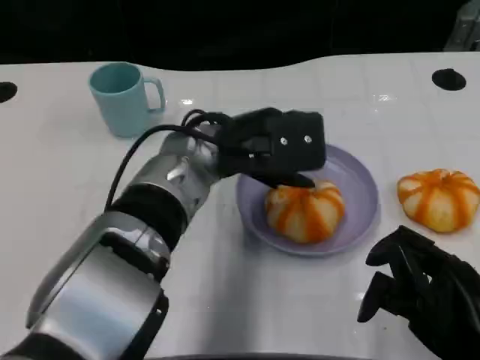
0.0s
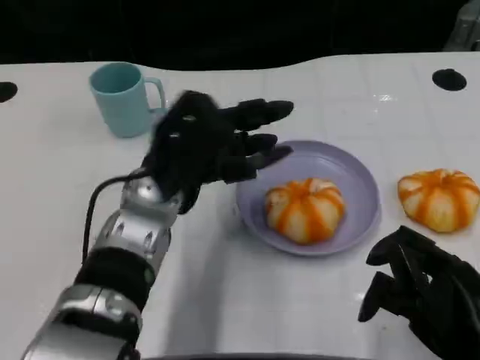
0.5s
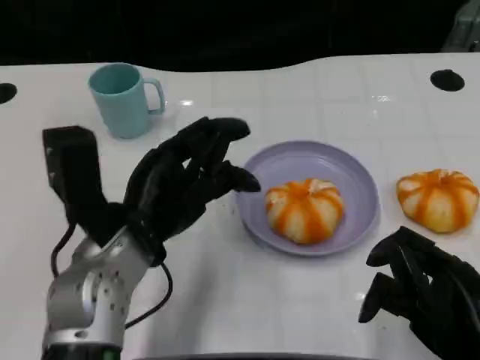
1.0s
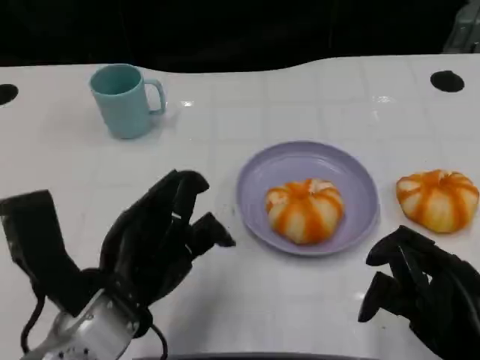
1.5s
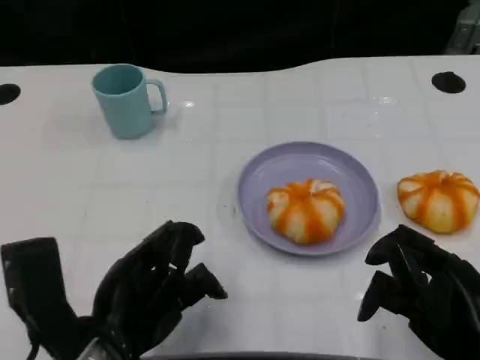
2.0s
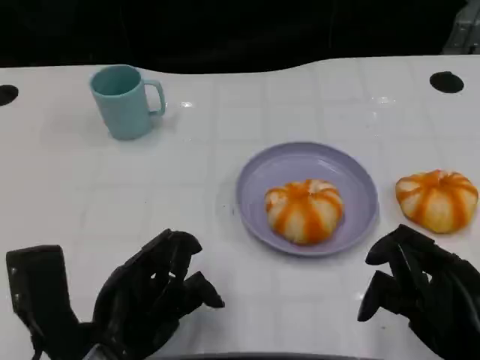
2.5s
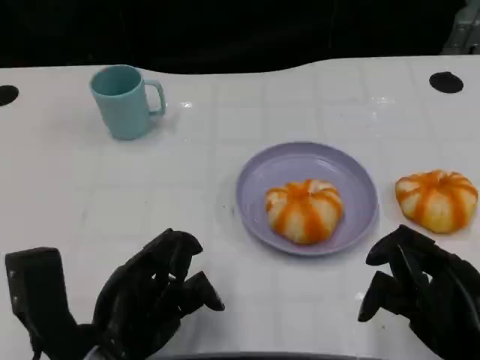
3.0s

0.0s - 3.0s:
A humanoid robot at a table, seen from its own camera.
Task of the whole recording: Grasp the bread from the table and place it into the plate.
0.0s - 1.5s: The left hand heads backward and to the left, covering roughly 15 cm.
1.5s - 3.0s: The hands make only small movements.

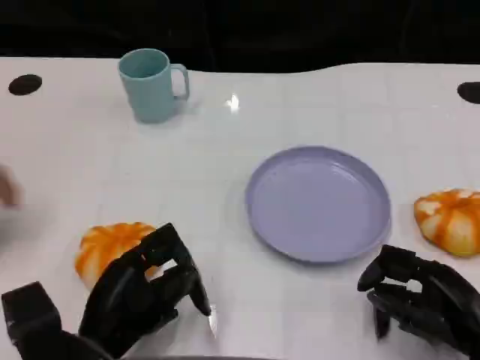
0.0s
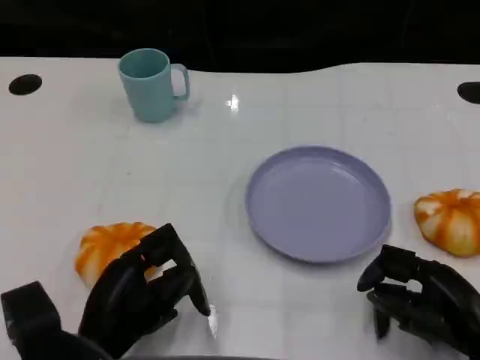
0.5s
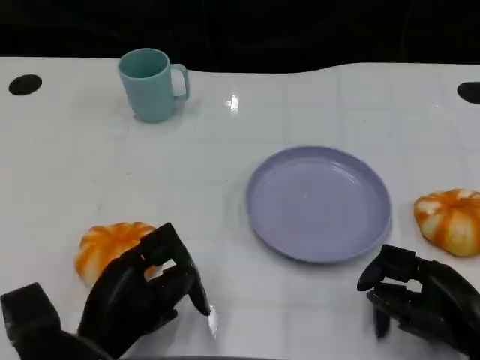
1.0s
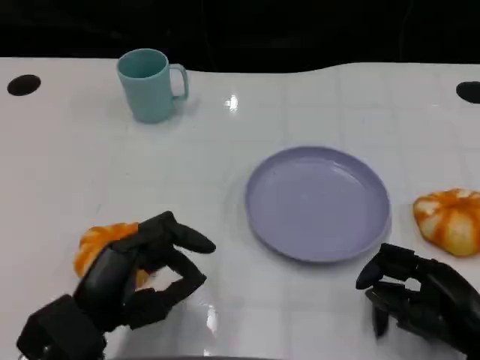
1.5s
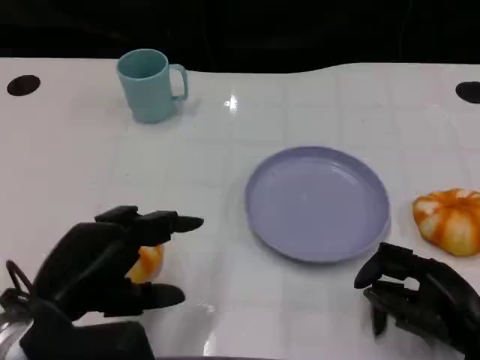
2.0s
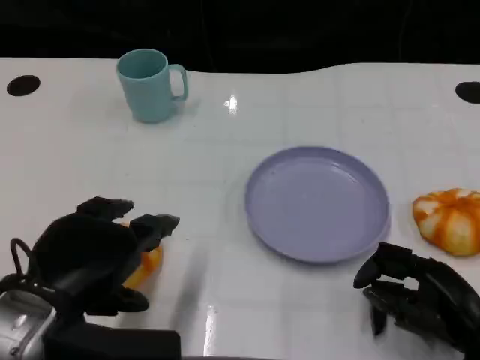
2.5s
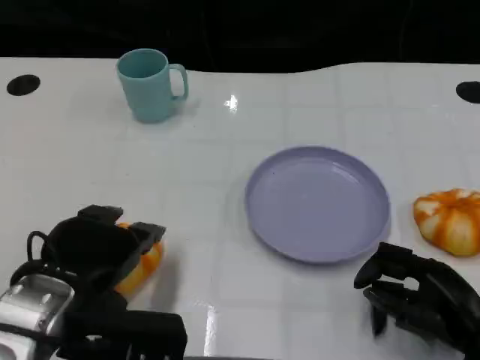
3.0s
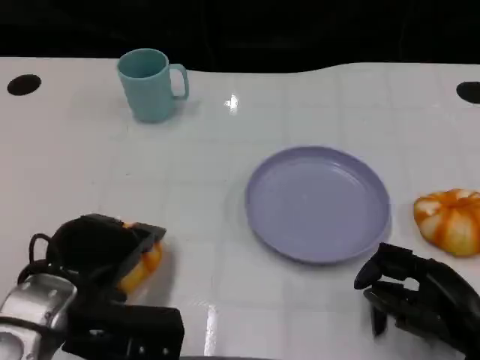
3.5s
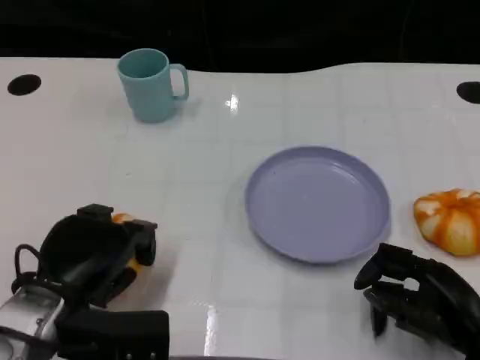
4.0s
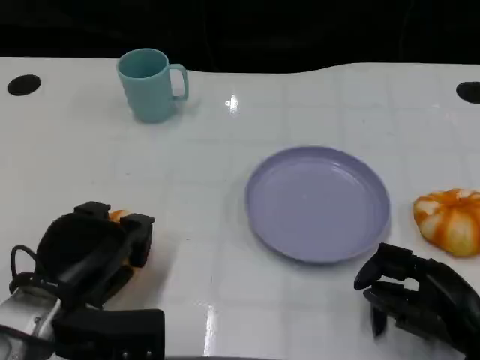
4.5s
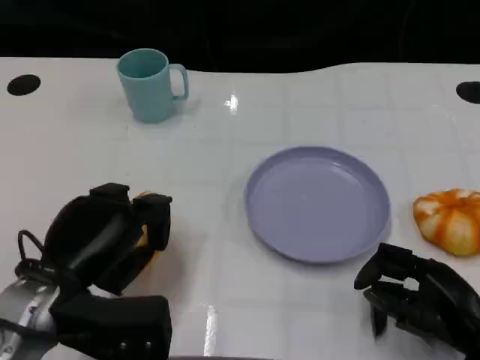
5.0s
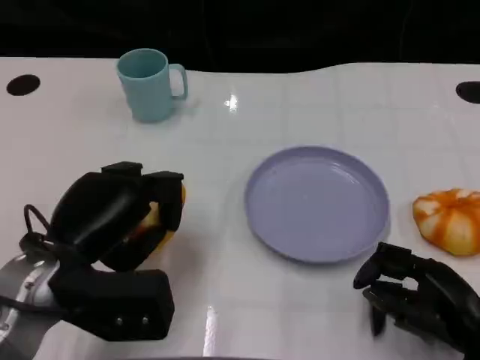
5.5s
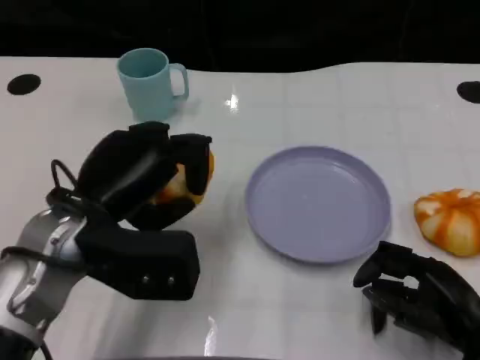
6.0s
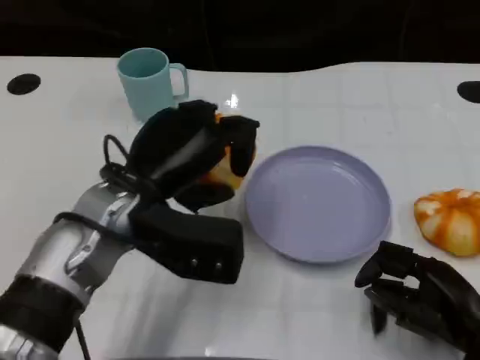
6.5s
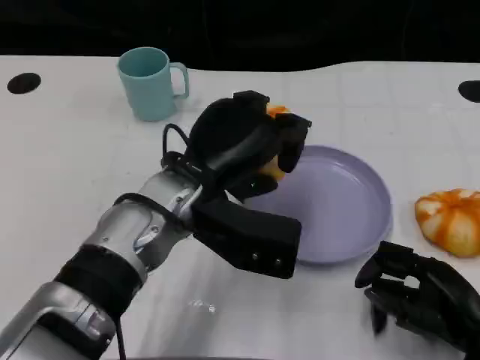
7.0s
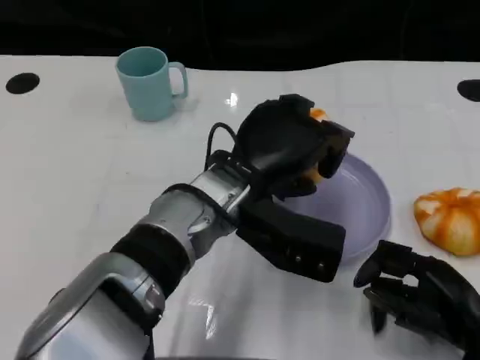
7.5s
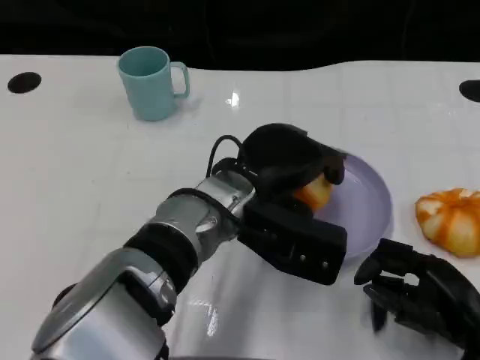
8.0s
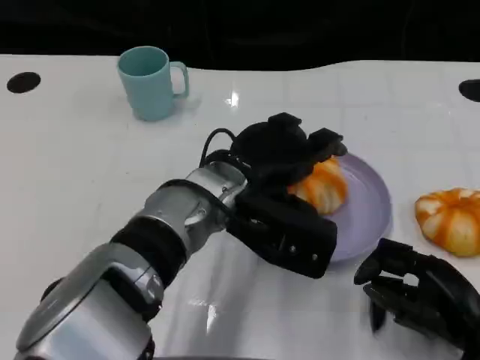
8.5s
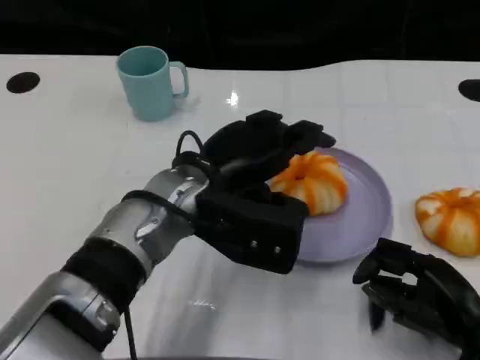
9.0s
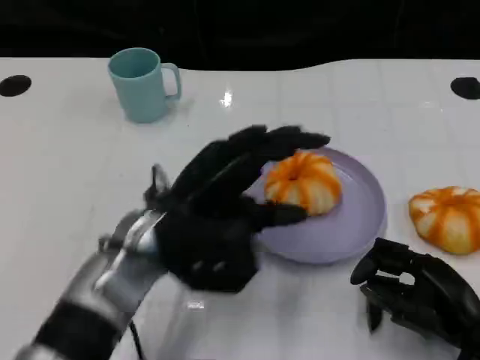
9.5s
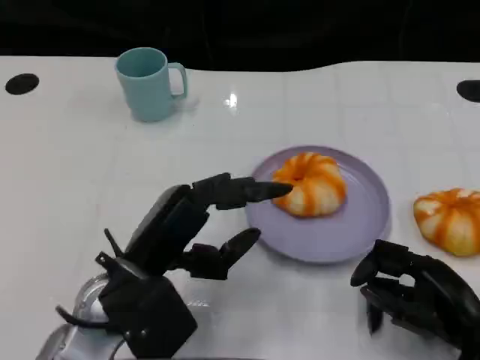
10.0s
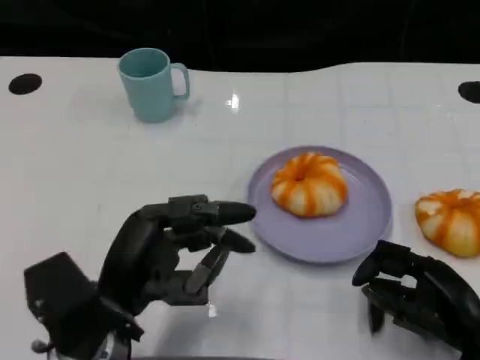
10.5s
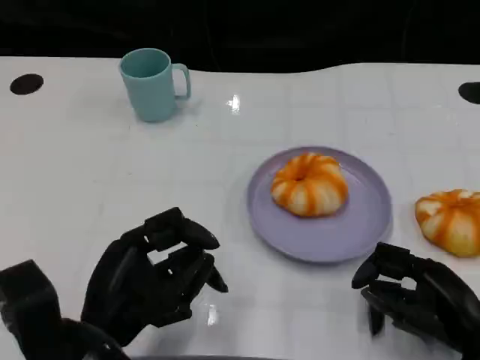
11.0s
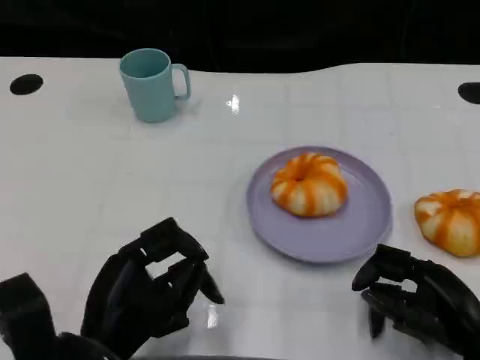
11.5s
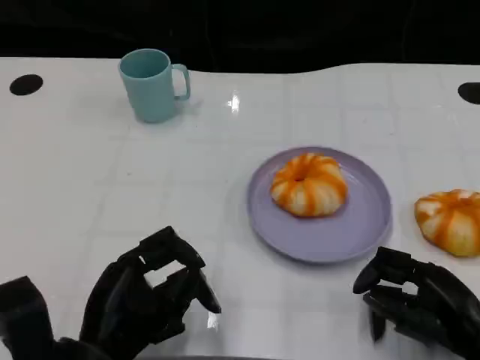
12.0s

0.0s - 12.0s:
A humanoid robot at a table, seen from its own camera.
Task of the whole recording: Grasp the bread from the table and place it into the plate.
0.0s - 2.0s: The left hand shifts approximately 10 cm upward.
2.0s - 4.0s: The left hand shifts by roughly 5 cm.
4.0s - 6.0s: The left hand moves upward, about 5 cm.
6.0s - 8.0s: The left hand shifts roughly 15 cm to the right.
8.0s - 10.0s: The left hand travels to the left and backward by some 15 cm.
10.0s - 12.0s: The left hand goes about 5 cm backward.

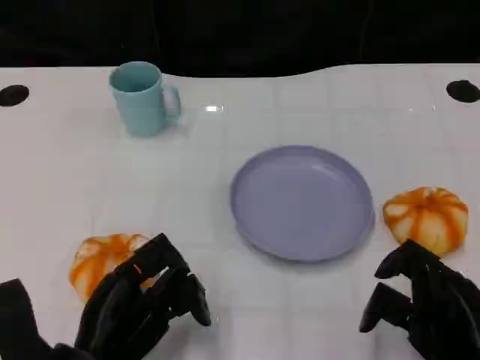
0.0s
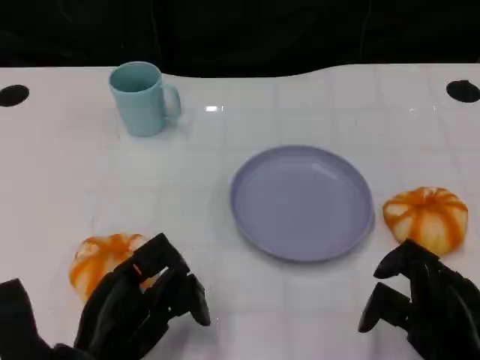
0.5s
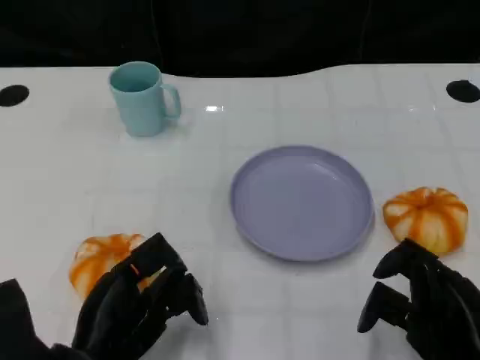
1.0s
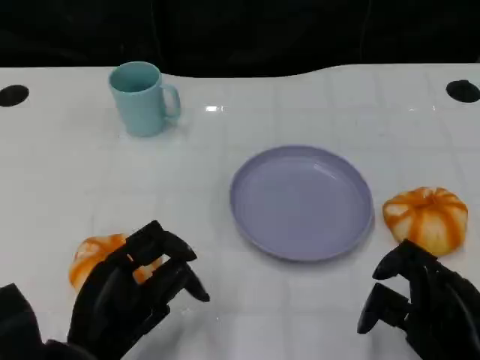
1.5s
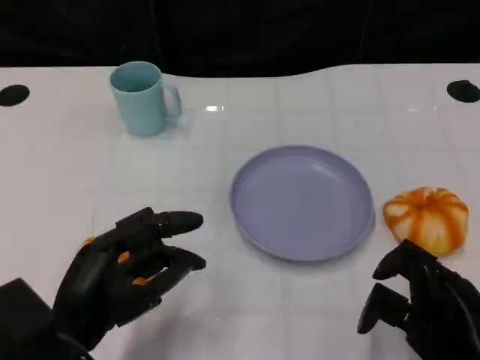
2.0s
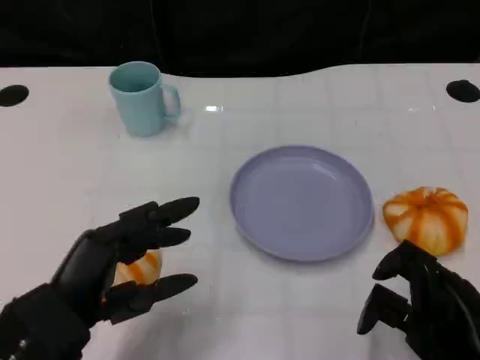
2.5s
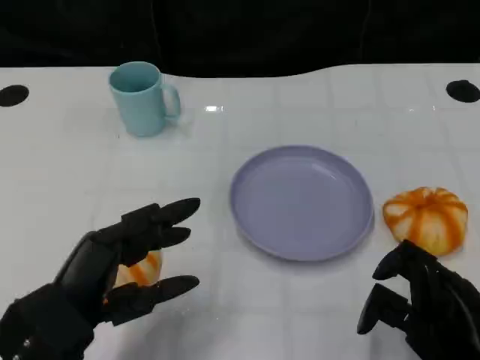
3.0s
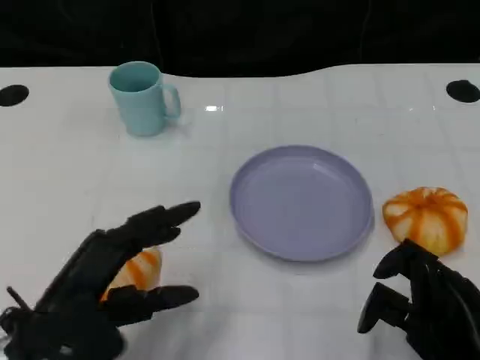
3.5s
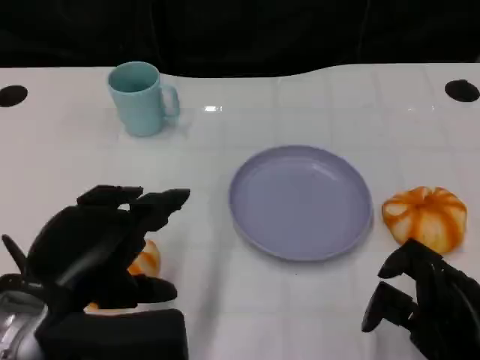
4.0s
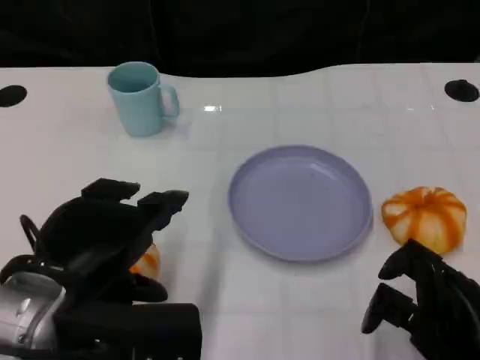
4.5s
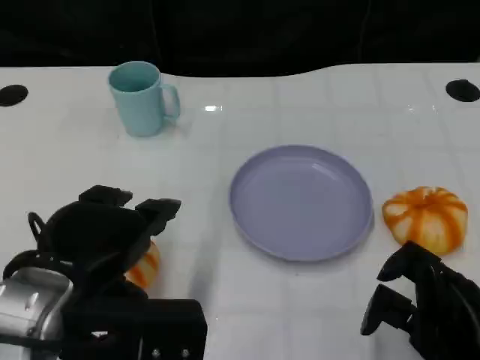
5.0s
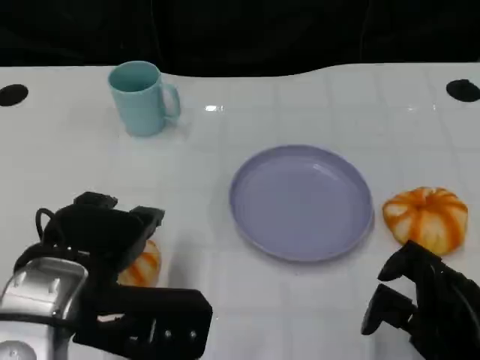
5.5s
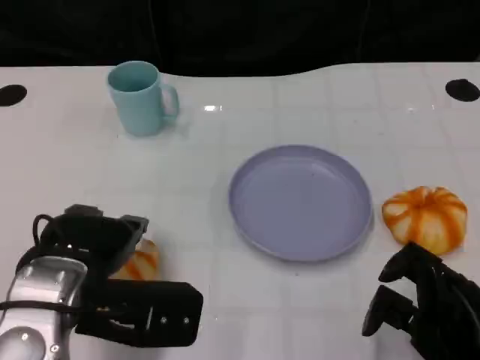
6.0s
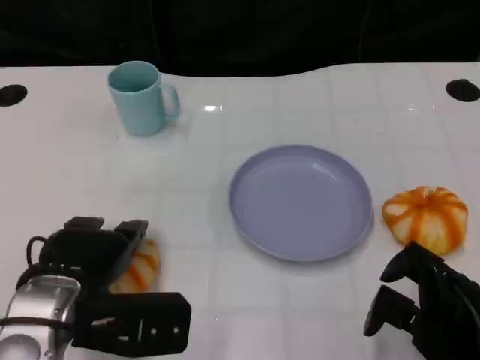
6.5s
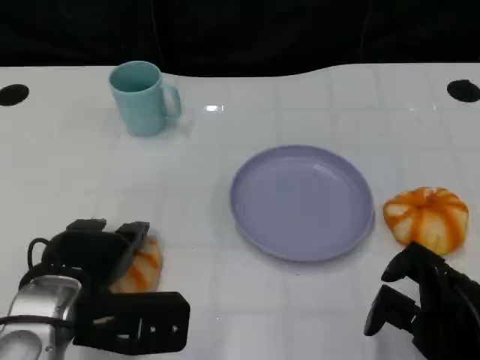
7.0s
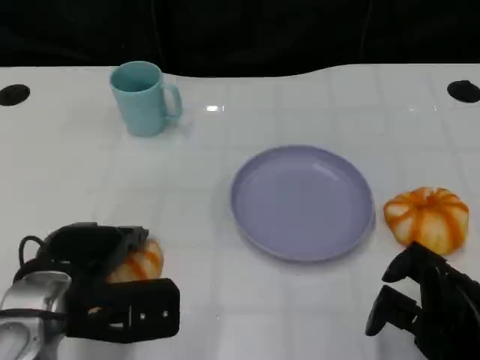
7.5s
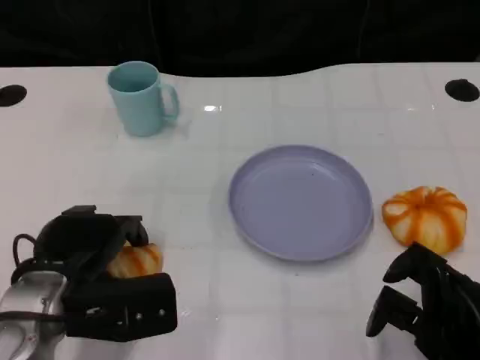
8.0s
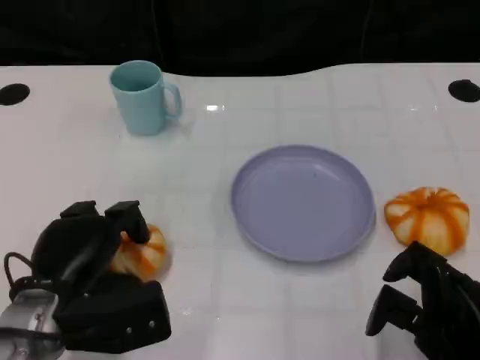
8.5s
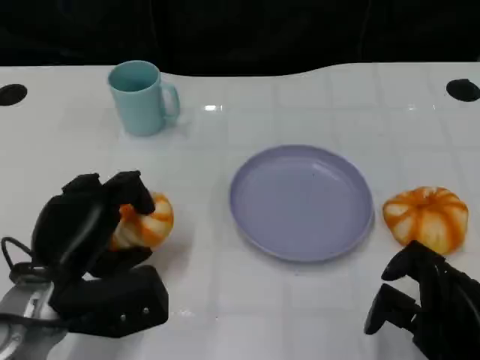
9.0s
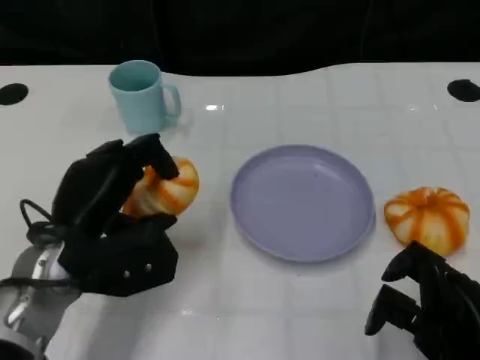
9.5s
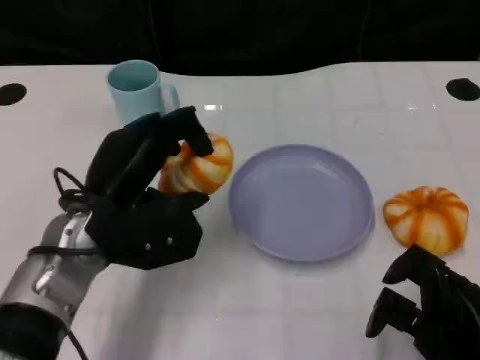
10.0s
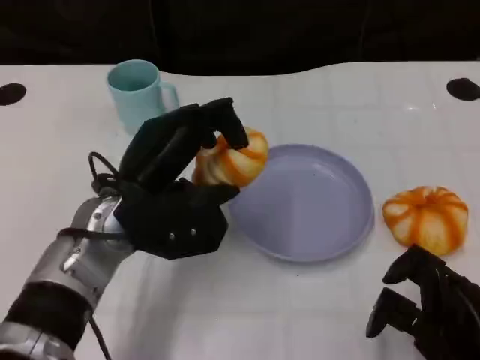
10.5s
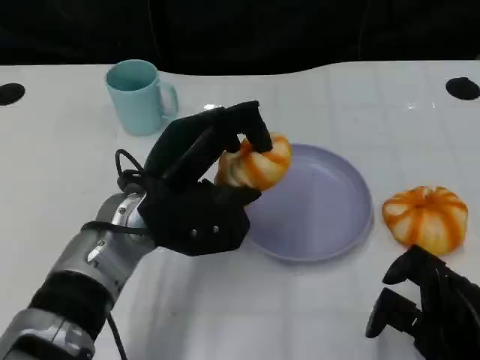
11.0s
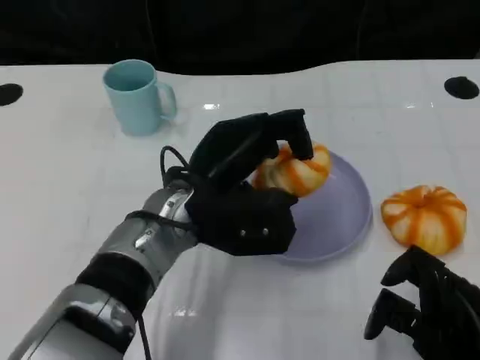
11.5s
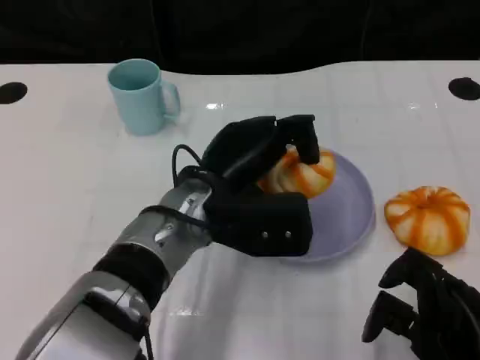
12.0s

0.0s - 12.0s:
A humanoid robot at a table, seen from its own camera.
Task of the whole recording: Grasp the bread from the table and place it into the plate.
2.0s - 4.0s: The left hand heads upward, covering about 10 cm.
4.0s - 6.0s: The left hand shifts by approximately 5 cm.
6.0s - 8.0s: The left hand moves approximately 5 cm.
8.0s - 10.0s: The left hand moves roughly 10 cm.
10.0s - 12.0s: The left hand goes roughly 10 cm to the right.
